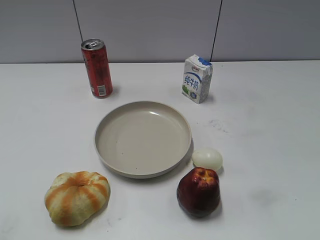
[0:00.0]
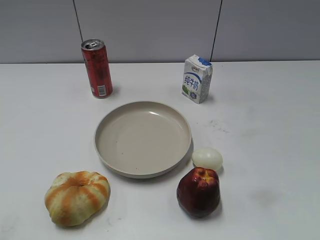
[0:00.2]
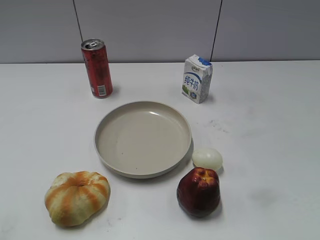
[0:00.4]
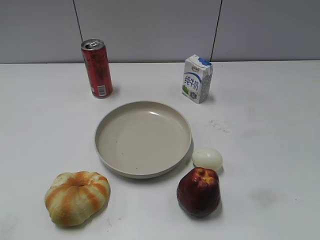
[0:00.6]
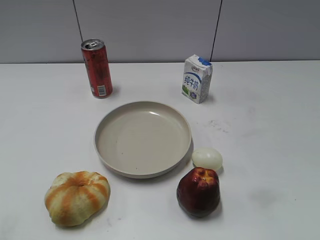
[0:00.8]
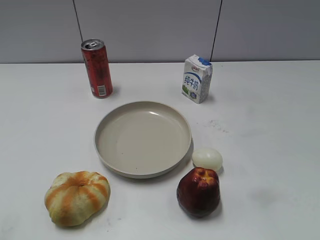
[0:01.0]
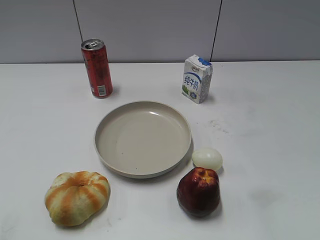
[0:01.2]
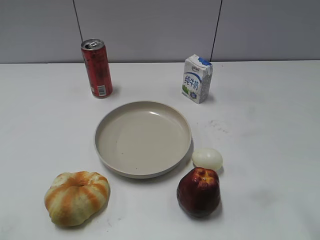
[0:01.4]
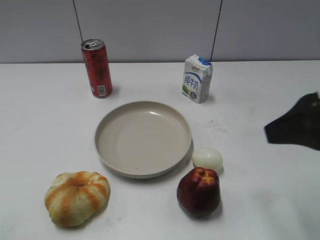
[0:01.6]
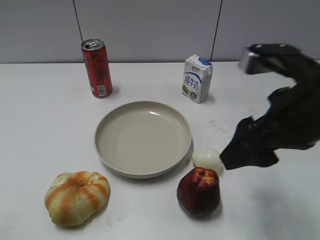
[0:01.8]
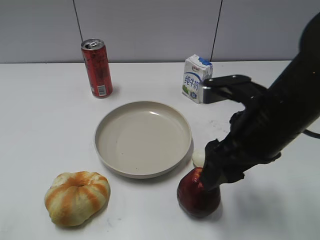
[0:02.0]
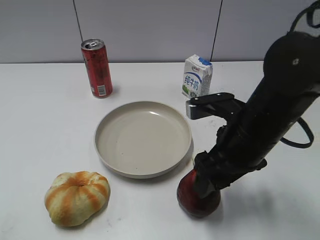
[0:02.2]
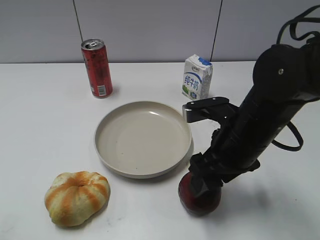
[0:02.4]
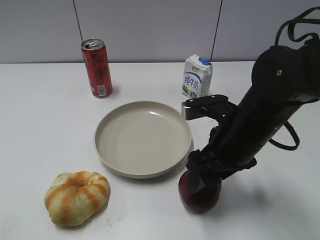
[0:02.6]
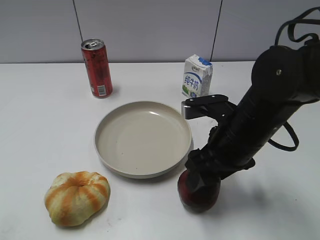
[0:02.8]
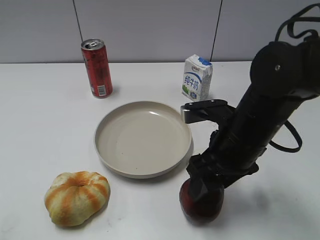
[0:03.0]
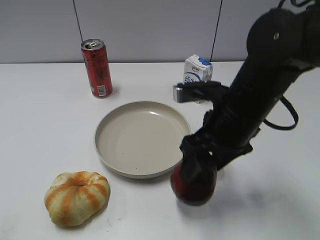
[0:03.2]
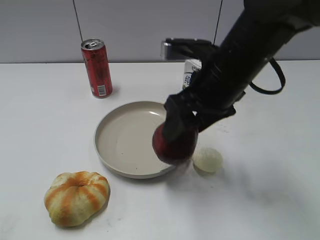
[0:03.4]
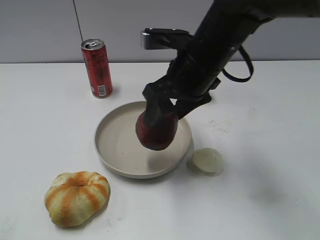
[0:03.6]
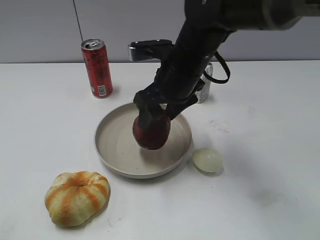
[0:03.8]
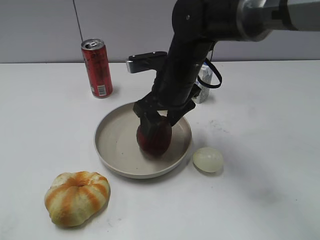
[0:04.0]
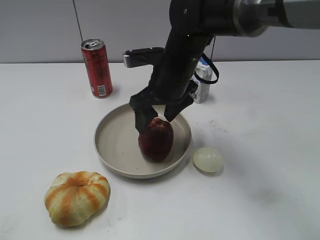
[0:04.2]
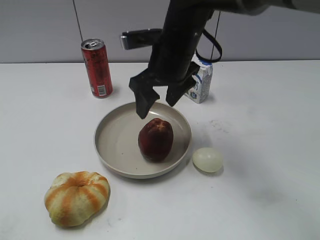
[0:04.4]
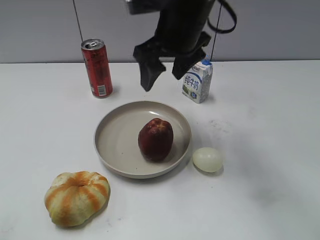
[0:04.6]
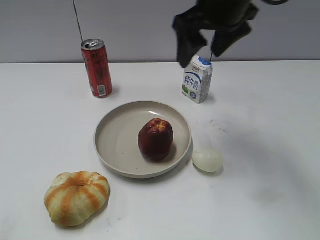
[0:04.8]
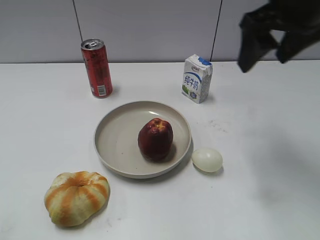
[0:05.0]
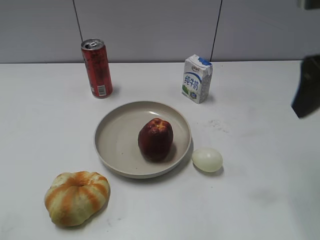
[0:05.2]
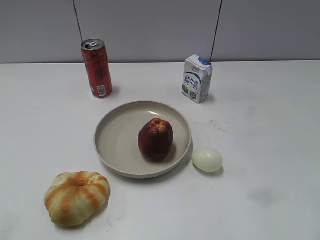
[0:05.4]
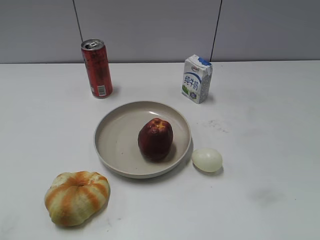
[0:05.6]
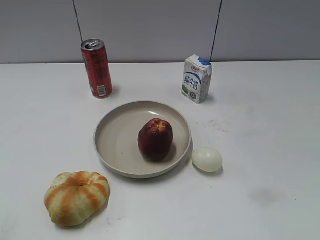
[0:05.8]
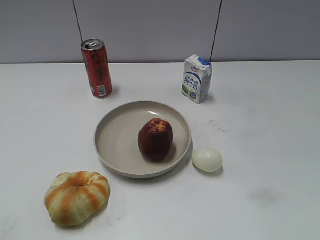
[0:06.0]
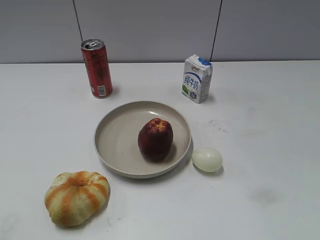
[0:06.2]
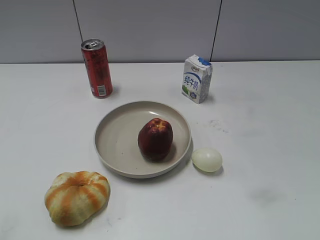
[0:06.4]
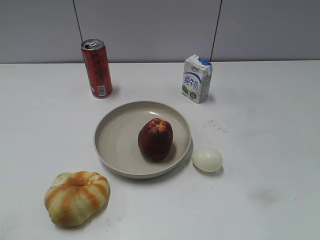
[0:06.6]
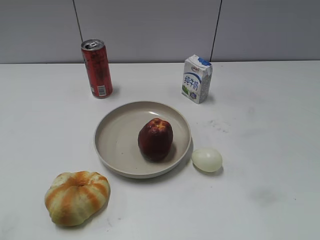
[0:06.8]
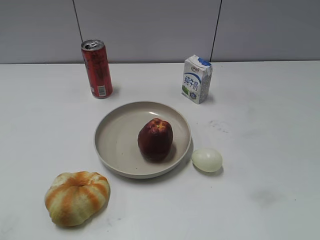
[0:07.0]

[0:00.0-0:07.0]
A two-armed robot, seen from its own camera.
Step, 0:00.8 to 0:02.6: Grasp the apple with right gripper.
Step, 0:03.0 to 0:04.2: Place the apple on the plate with right gripper.
0:01.4 to 0:02.8: The right gripper travels downward, to the left and forward by some 25 cm, and closes up.
0:02.8 to 0:04.2: The right gripper heads forward and to the left, covering approximately 15 cm, and opens its fingers.
0:04.2 to 0:05.6: The right gripper travels backward and to the right by some 35 cm.
